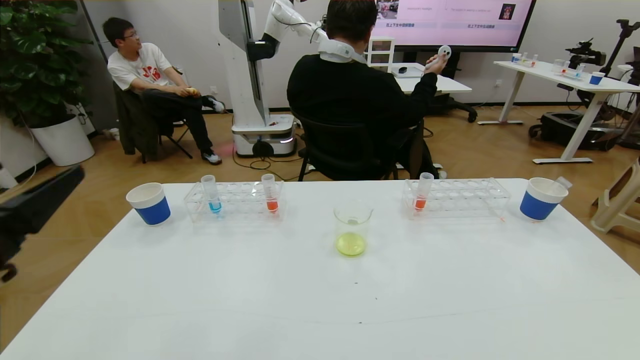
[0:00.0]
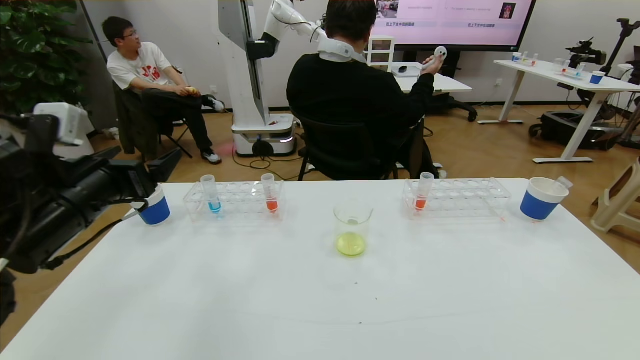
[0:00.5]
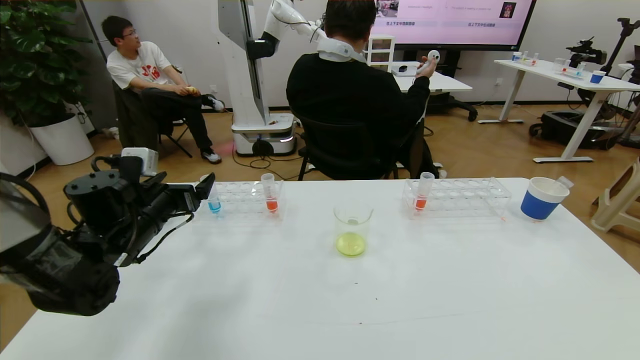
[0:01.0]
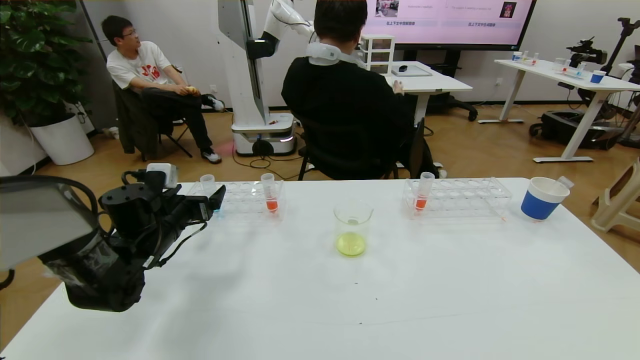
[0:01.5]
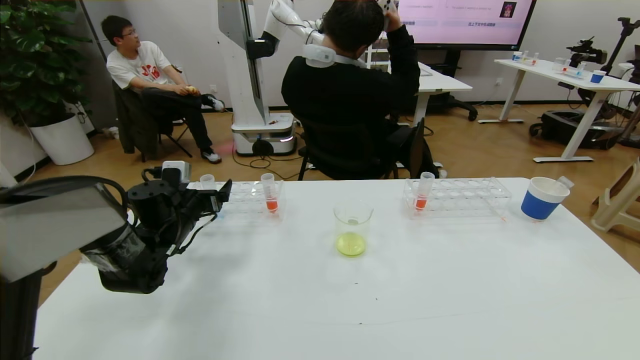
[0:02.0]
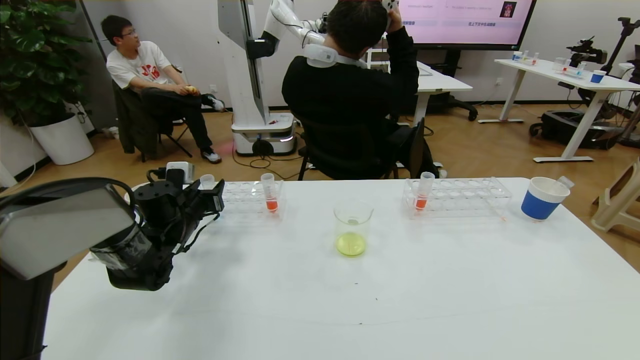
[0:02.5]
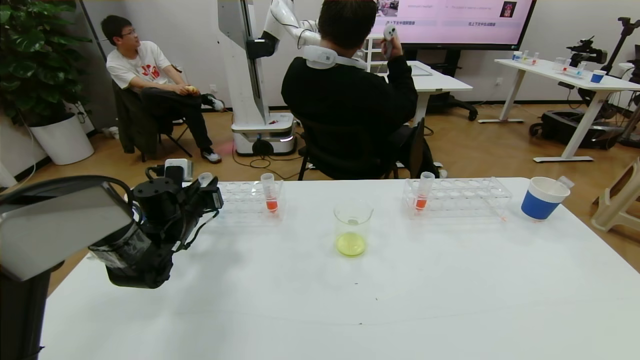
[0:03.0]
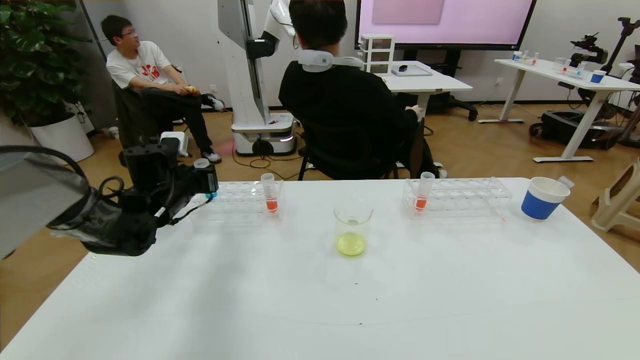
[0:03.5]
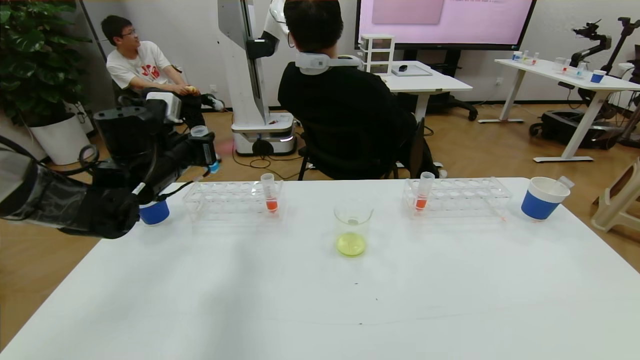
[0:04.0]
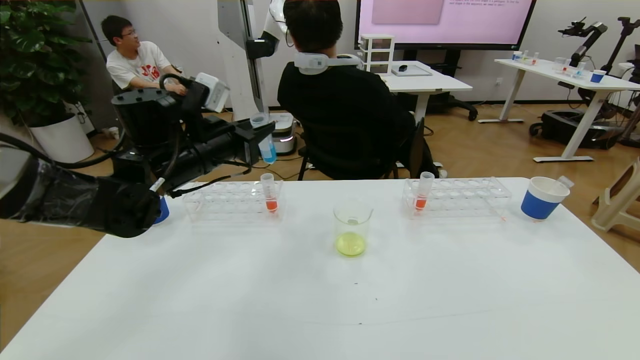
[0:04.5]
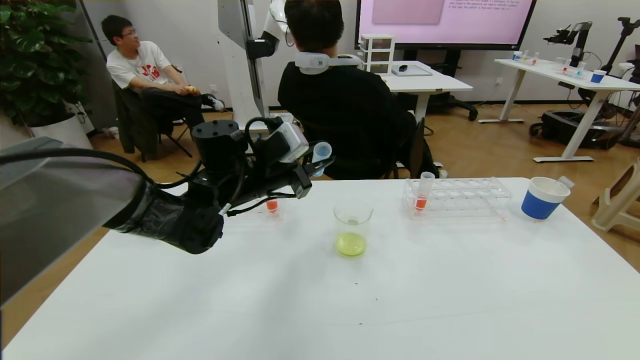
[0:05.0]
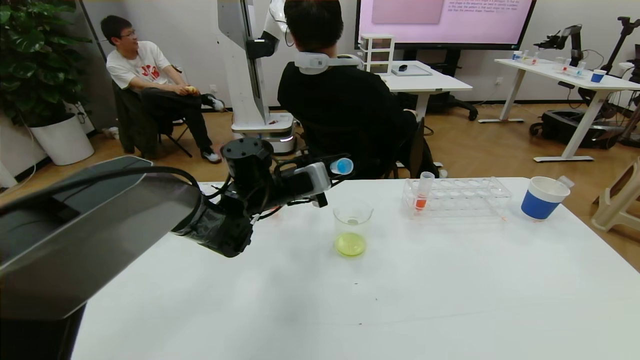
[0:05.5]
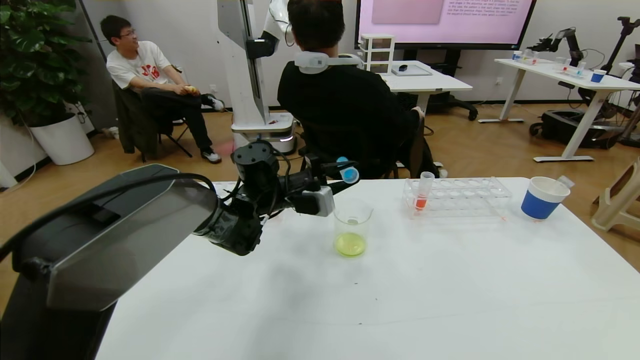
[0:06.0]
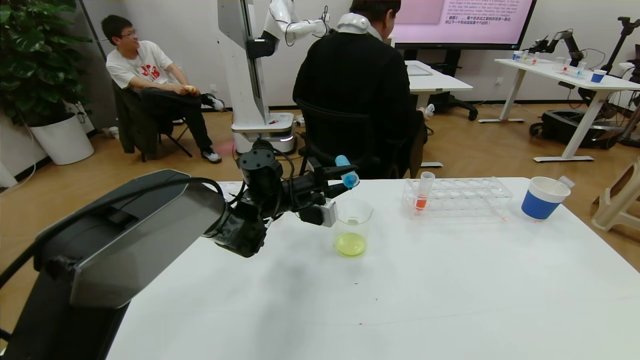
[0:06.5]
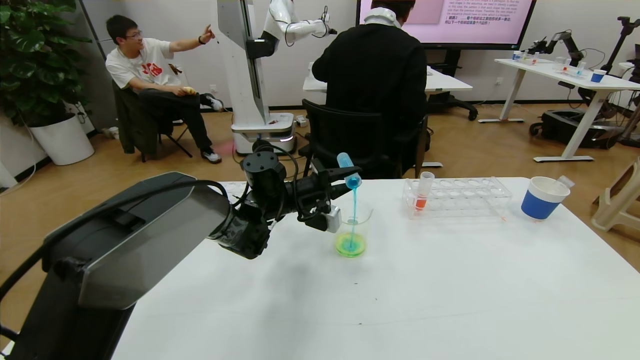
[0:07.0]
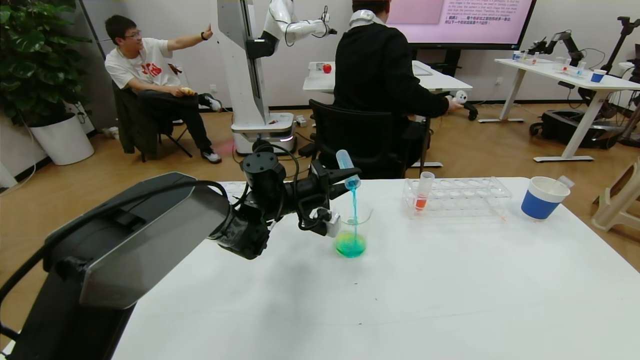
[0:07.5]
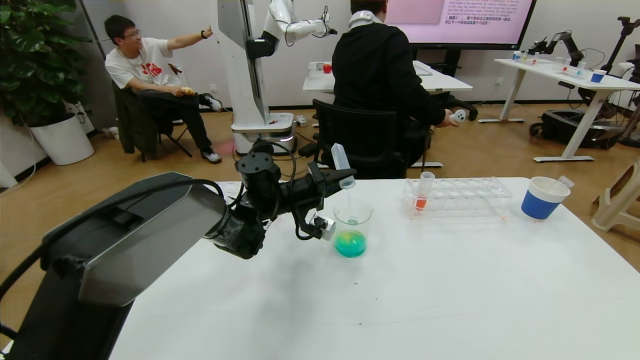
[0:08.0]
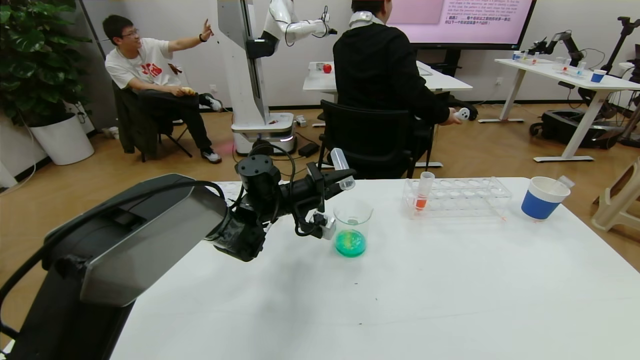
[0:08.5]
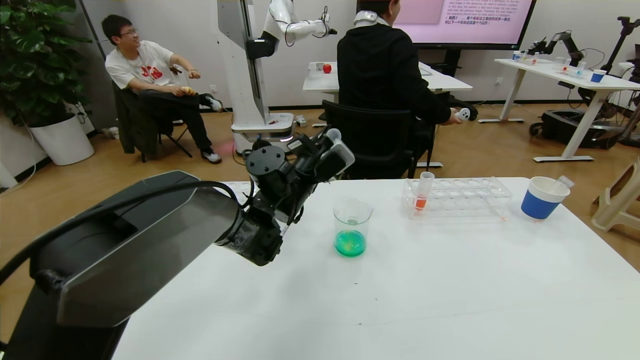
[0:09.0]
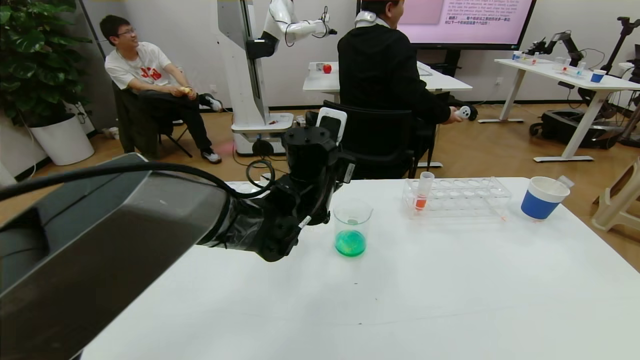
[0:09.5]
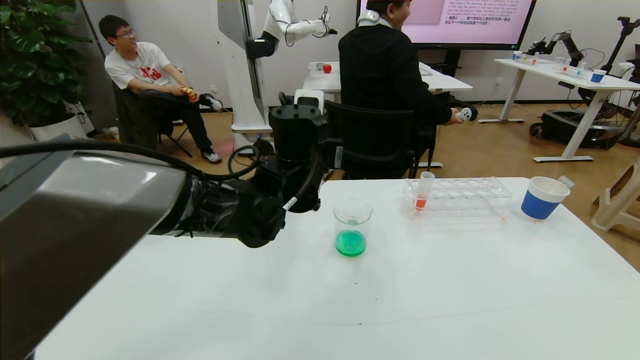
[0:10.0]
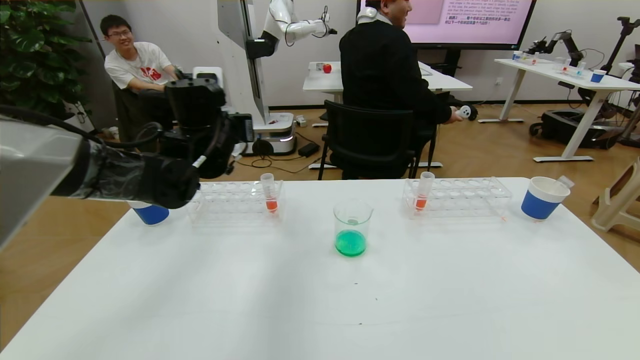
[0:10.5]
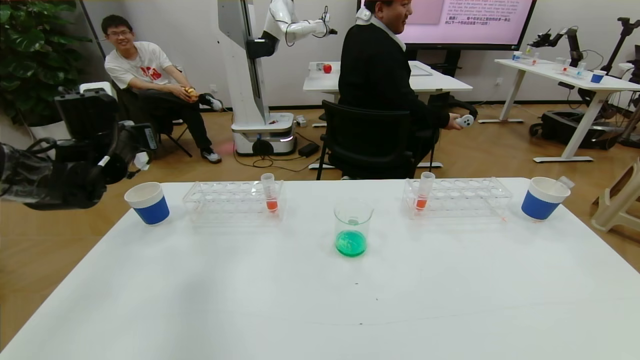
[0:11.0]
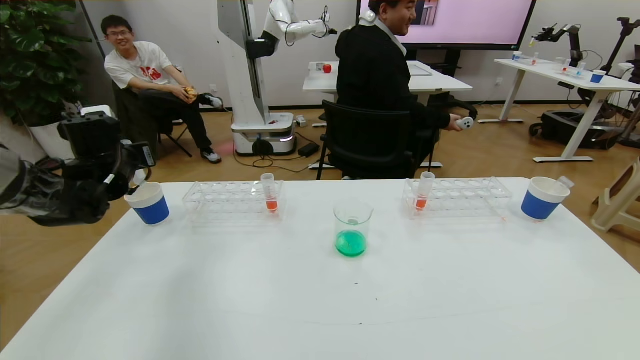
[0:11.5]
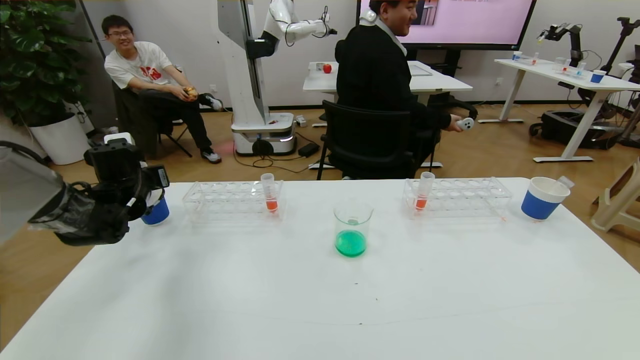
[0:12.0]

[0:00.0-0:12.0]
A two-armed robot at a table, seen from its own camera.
Task of the whole recording: pick up the test tube with yellow pigment and the test tube with blue pigment by grippers and pour them into the beaker.
Step, 0:00.0 to 0:02.5: Grasp the blue reagent with the left gripper.
Step, 0:03.0 to 0:08.5: Pour the blue reagent into the graduated cylinder with the left gripper.
0:00.0 to 0:02.0: The left gripper shifts approximately 35 cm forward and downward.
0:02.0 to 0:04.0: The left gripper is displaced upward by roughly 15 cm, and closes up.
0:04.0 to 0:06.0: The left gripper travels to the right and downward by about 20 cm.
0:08.0 to 0:10.0: The left gripper moves upward and backward, roughly 10 cm.
0:10.0 to 0:12.0: The left gripper shifts approximately 30 cm to the left.

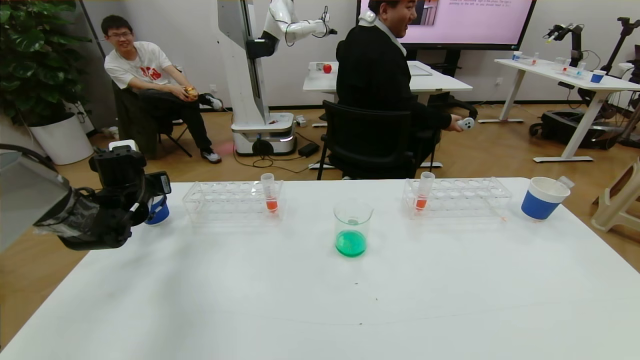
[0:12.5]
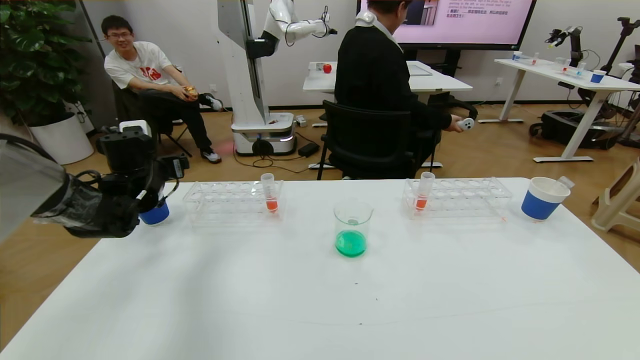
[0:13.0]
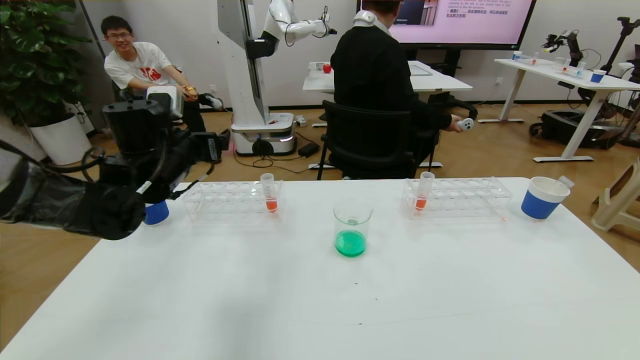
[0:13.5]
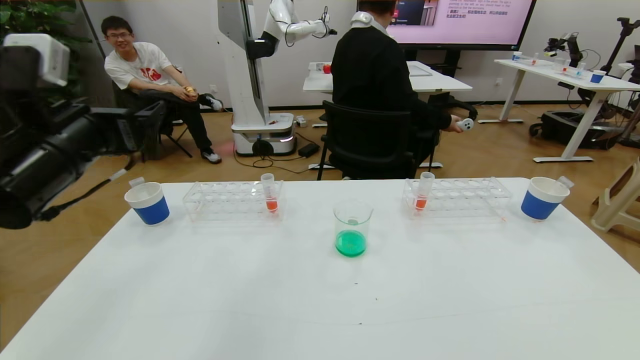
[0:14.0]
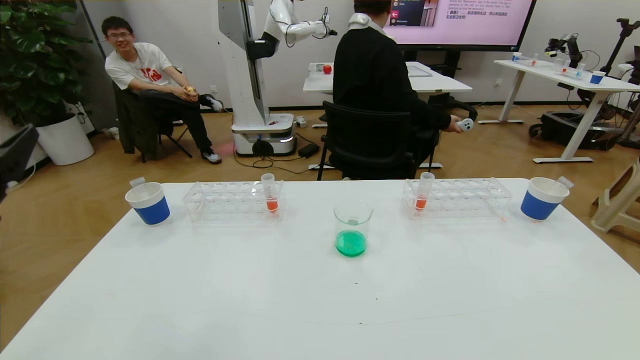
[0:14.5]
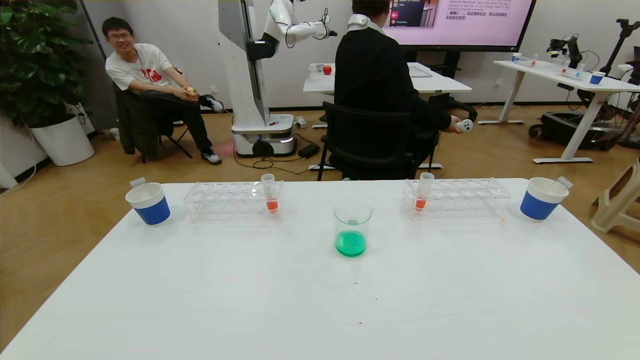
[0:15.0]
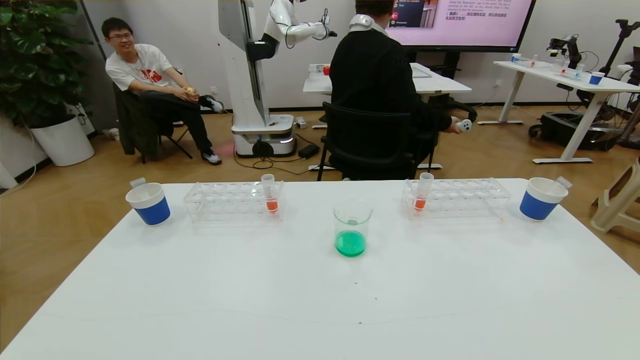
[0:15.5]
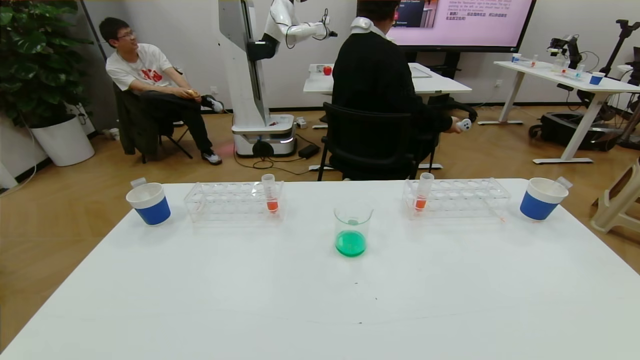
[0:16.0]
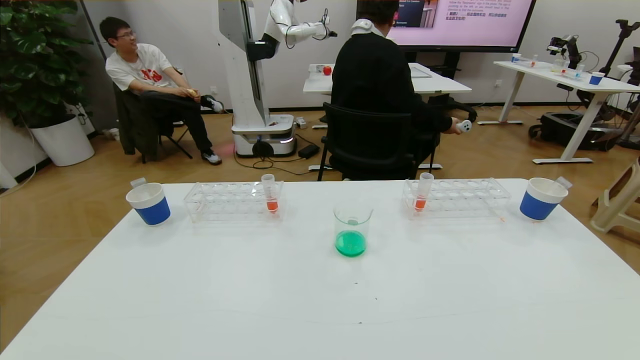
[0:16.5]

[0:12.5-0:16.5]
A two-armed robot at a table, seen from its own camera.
Task of the whole recording: pick up the test tube with yellow pigment and the test tube with blue pigment by grippers and pour them into the beaker.
0:12.5 to 0:14.5: The left gripper shifts some 35 cm backward and upward.
0:14.5 to 0:16.5: The left gripper is displaced downward and backward by roughly 25 cm.
